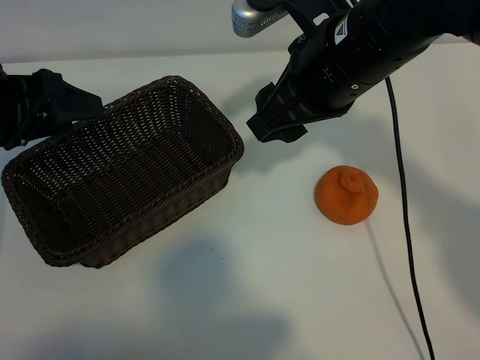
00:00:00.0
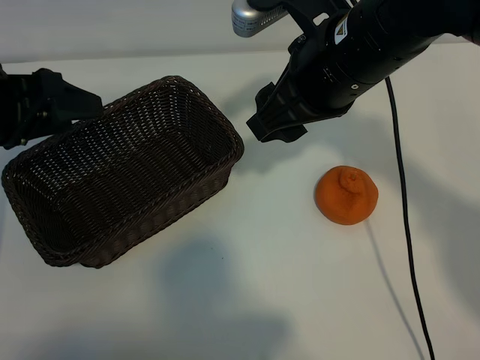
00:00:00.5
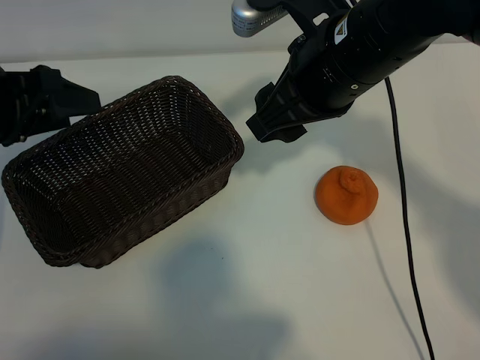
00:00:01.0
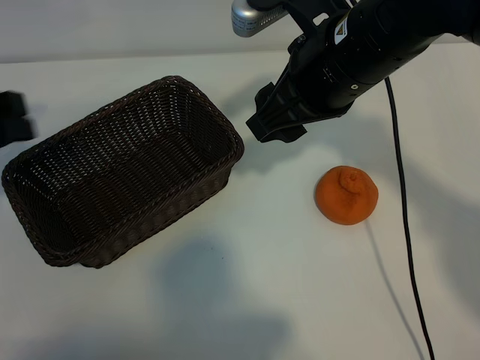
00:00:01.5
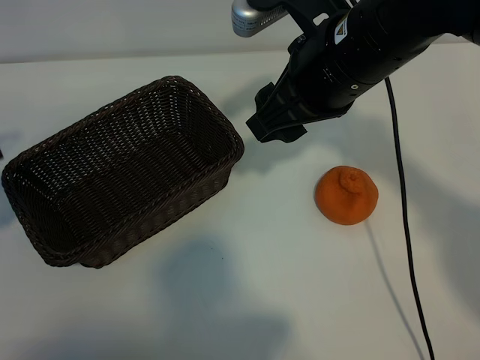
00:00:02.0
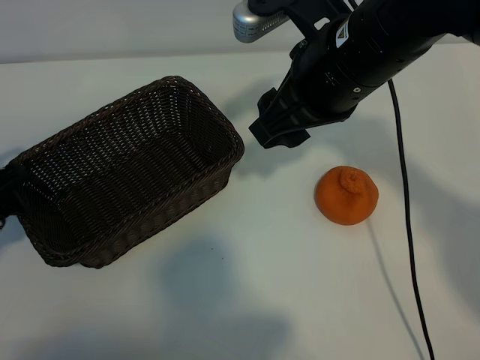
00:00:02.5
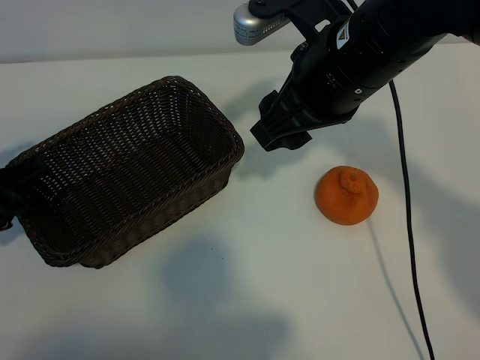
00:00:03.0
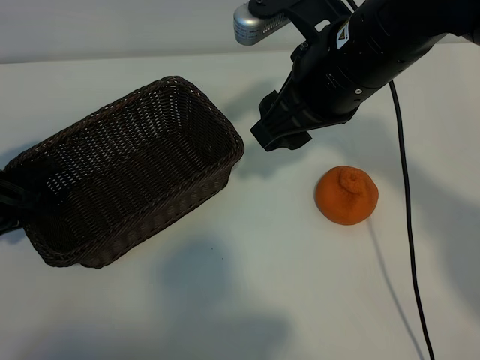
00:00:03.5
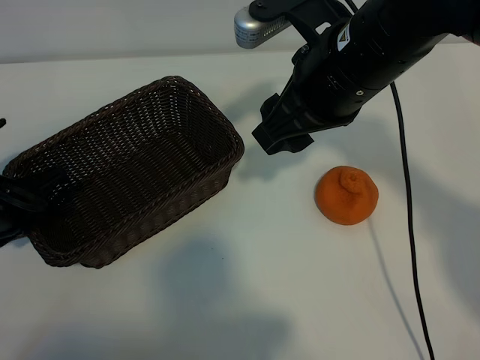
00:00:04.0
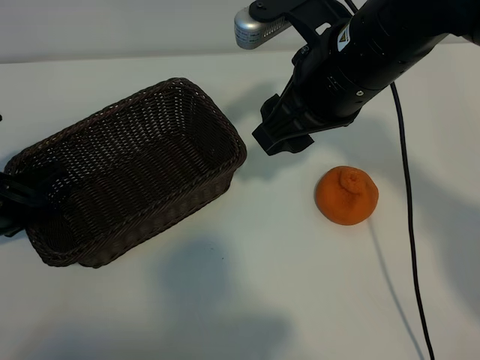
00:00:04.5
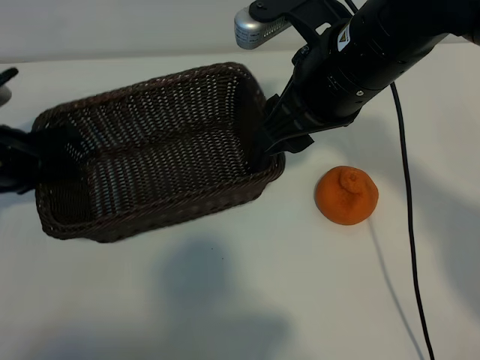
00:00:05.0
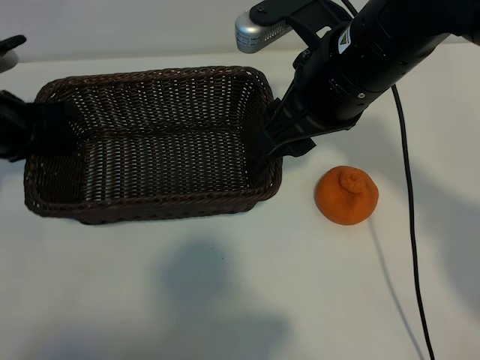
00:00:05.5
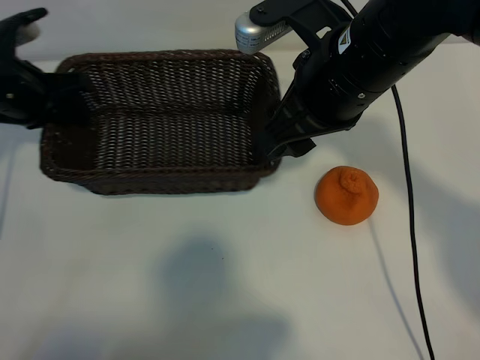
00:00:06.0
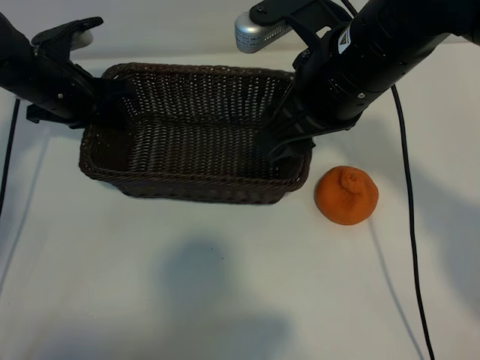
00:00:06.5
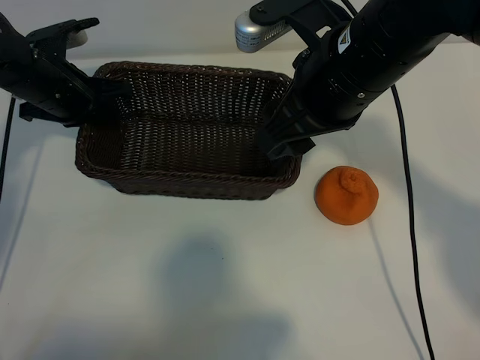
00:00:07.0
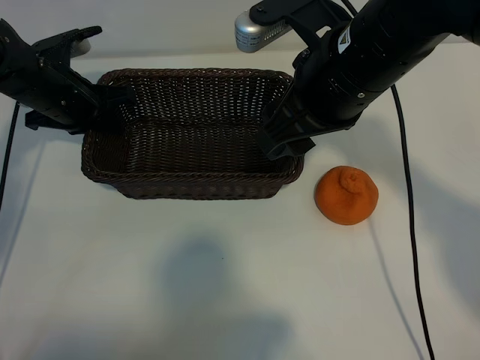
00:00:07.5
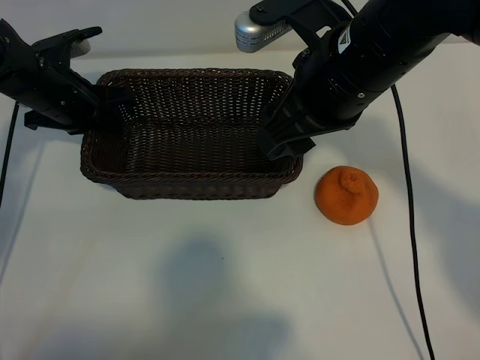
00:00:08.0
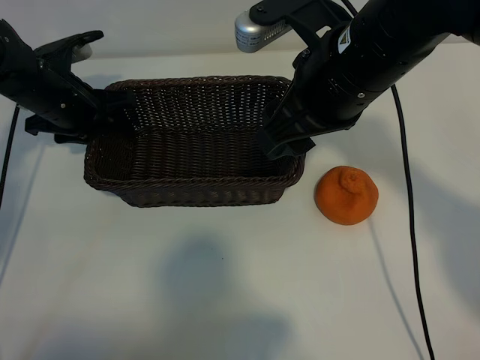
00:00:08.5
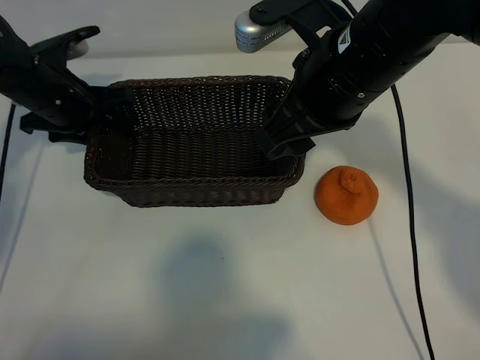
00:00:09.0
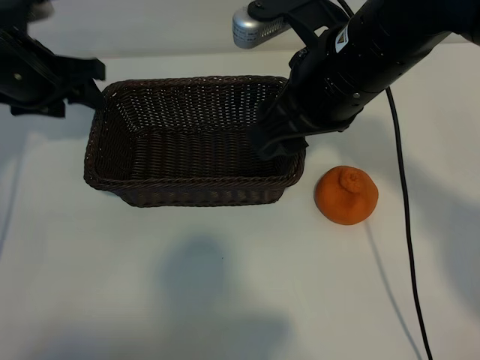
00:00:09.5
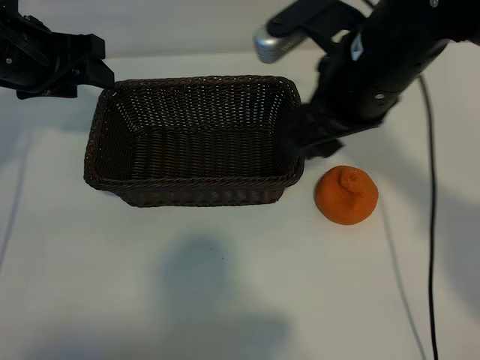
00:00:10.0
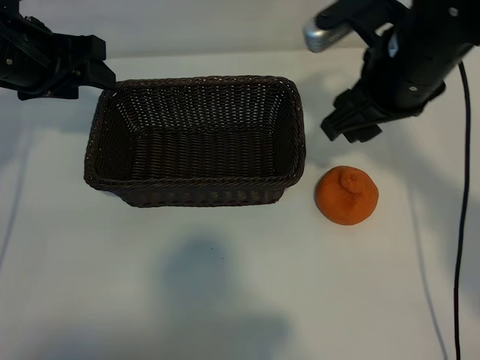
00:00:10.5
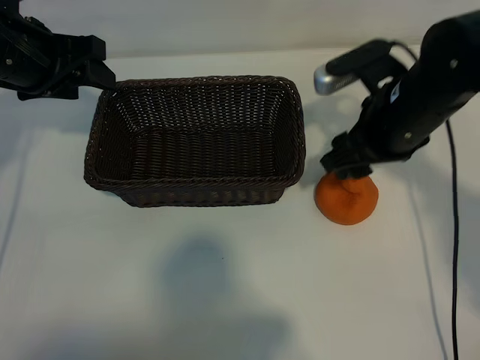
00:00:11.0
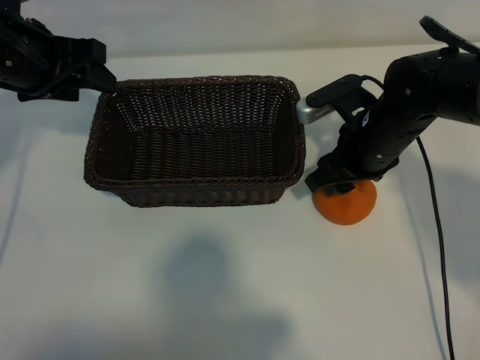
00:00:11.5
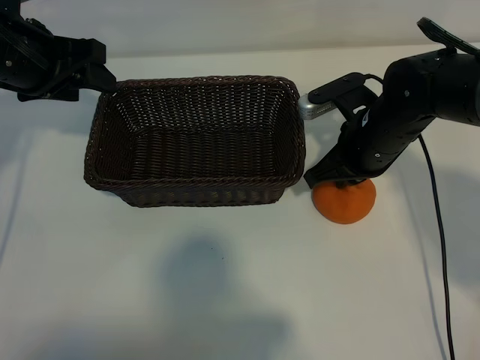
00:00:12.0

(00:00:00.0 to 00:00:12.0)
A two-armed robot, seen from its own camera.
Task of the whole recording: pick up the orange and put it into the basket.
Step, 00:00:01.0 - 00:00:04.0: Grasp the basket with left gripper.
Step, 00:00:04.5 - 00:00:08.5: Place the basket in the center of view with left gripper.
Step, 00:00:09.0 - 00:00:11.5: Grasp the orange with right gripper.

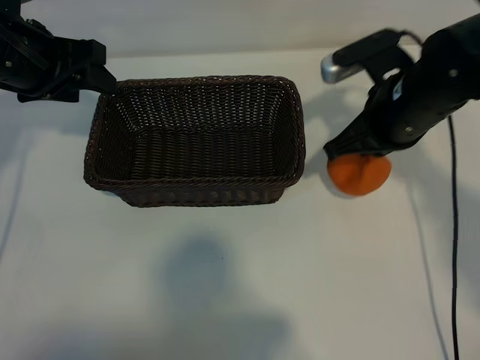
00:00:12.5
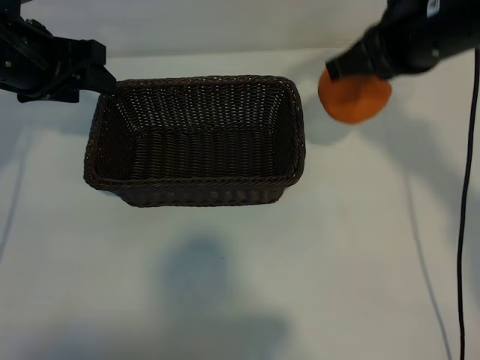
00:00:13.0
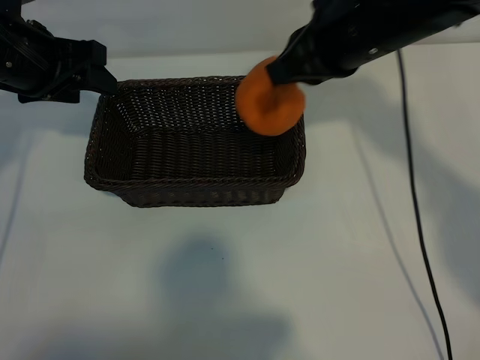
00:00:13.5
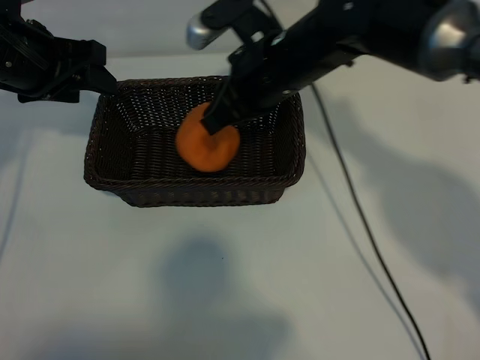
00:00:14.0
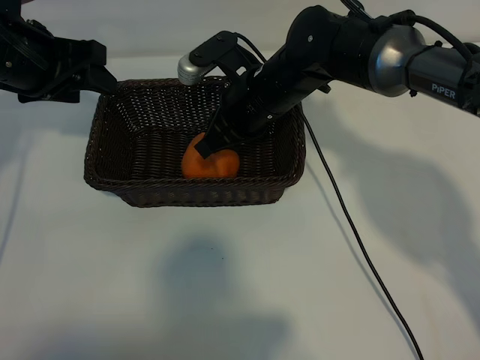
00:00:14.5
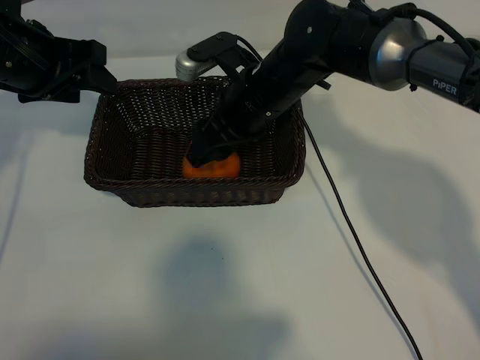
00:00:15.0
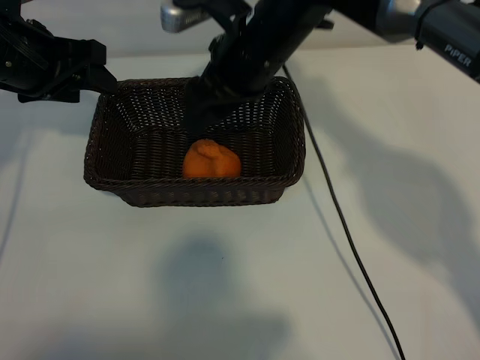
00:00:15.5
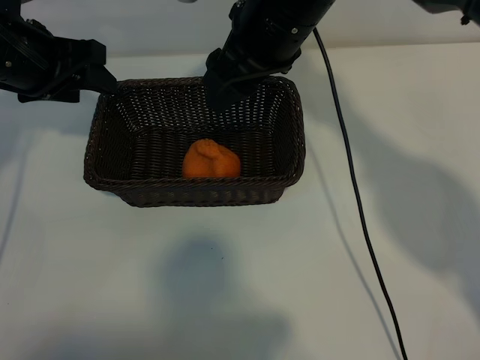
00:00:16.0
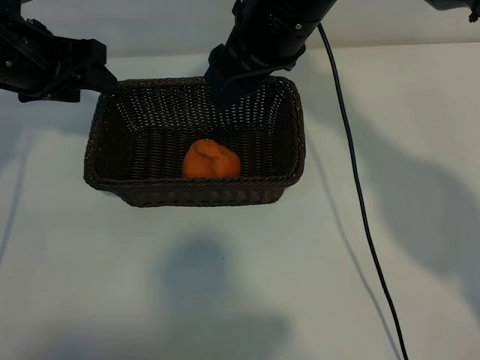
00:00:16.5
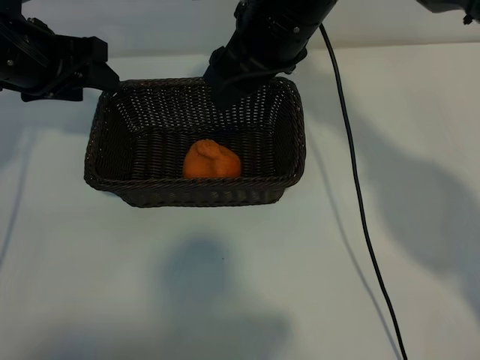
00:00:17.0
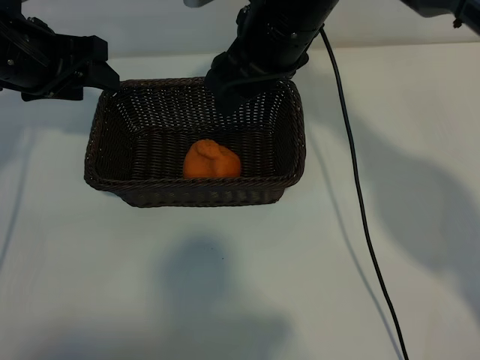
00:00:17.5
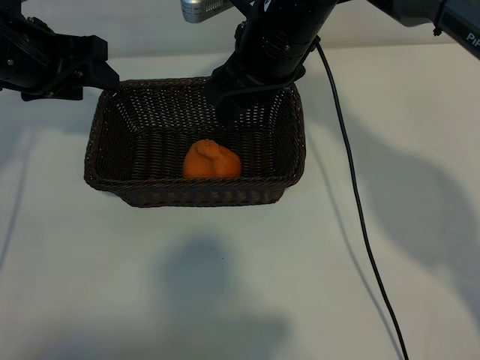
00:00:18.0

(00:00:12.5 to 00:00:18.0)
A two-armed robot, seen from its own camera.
Task of the whole recording: pick up the orange and put it into the basket.
Step, 00:00:12.5 - 00:00:15.0: Place the orange in the basket with right gripper.

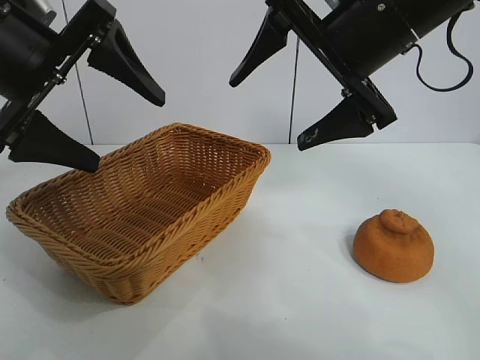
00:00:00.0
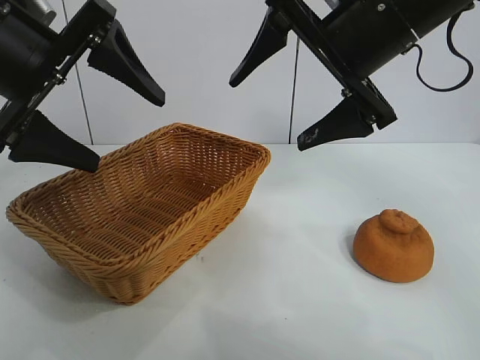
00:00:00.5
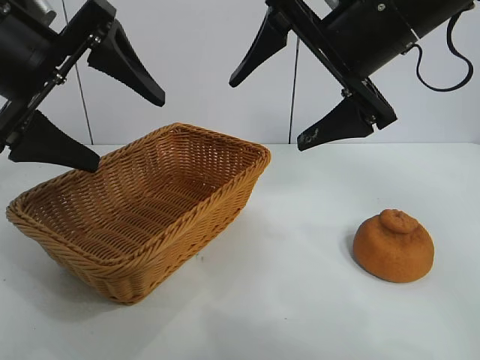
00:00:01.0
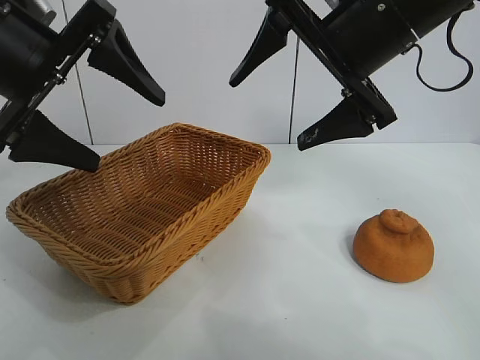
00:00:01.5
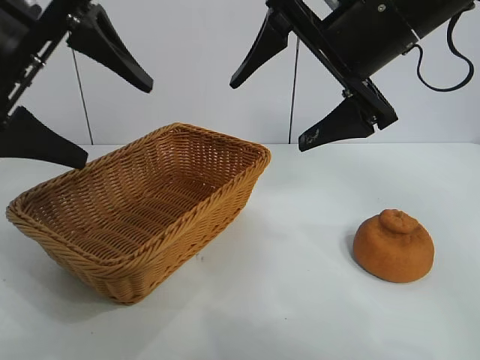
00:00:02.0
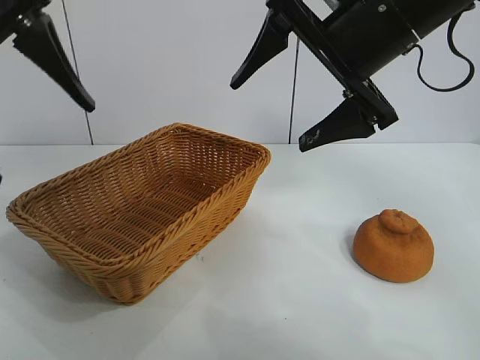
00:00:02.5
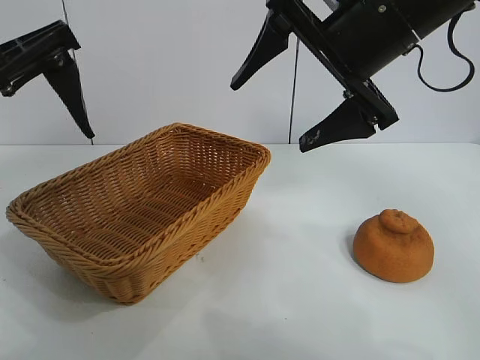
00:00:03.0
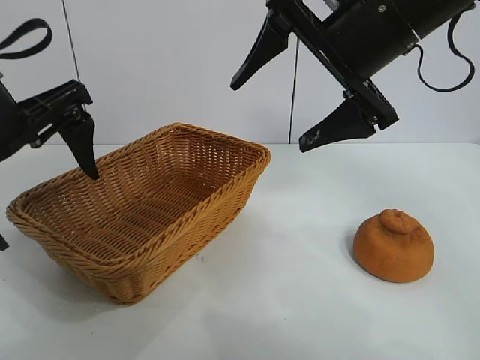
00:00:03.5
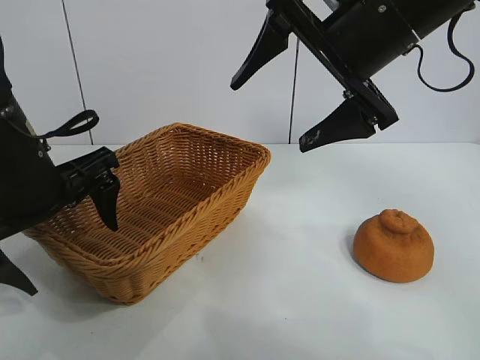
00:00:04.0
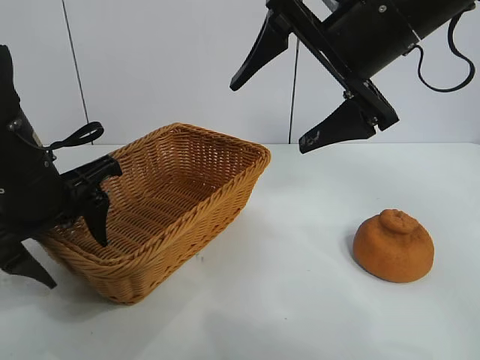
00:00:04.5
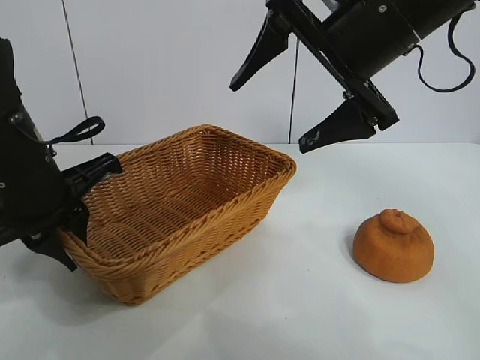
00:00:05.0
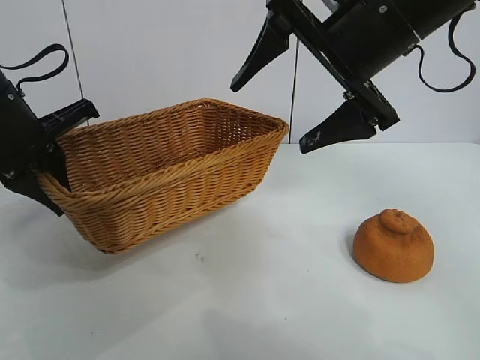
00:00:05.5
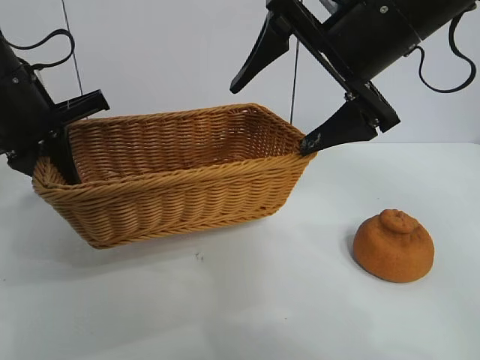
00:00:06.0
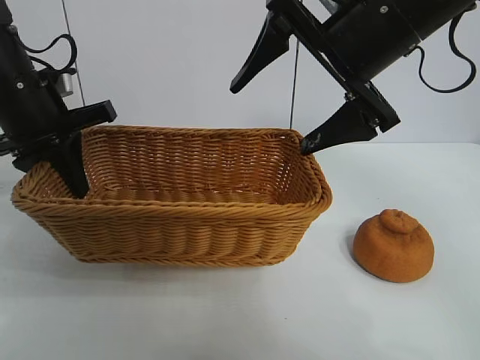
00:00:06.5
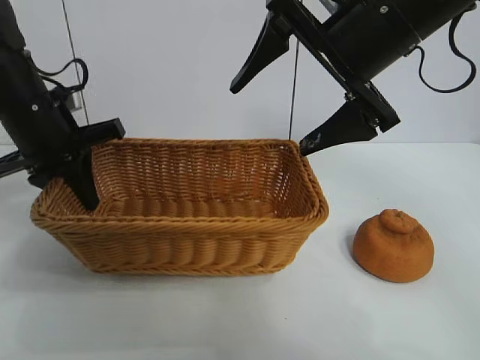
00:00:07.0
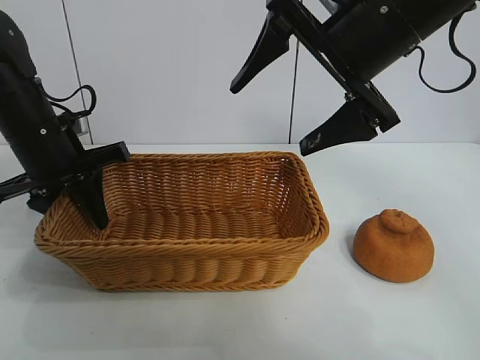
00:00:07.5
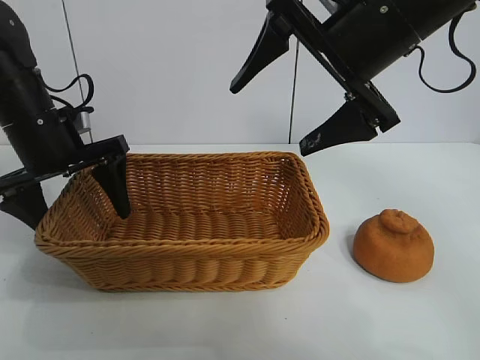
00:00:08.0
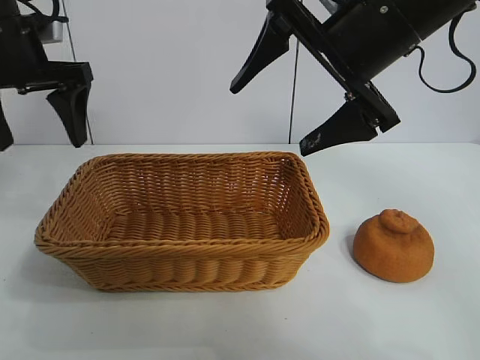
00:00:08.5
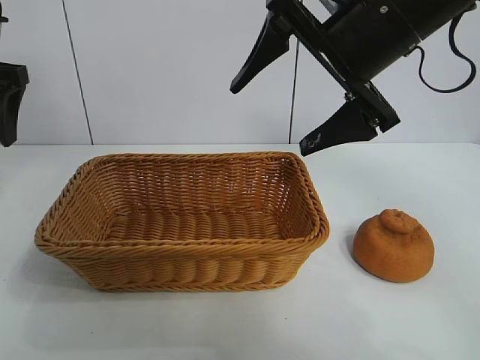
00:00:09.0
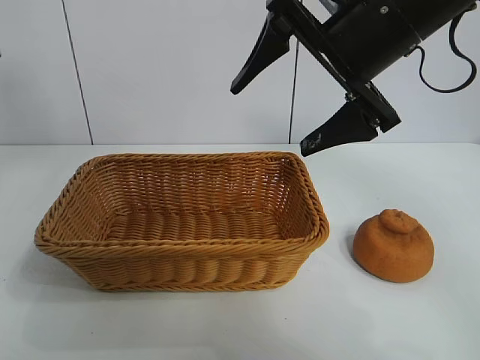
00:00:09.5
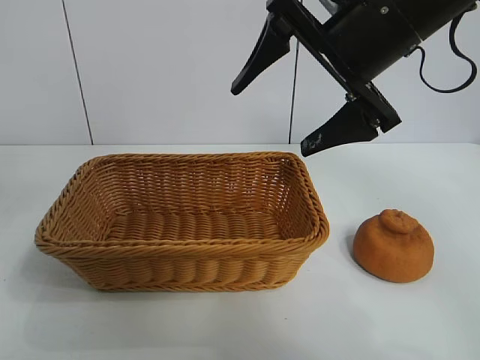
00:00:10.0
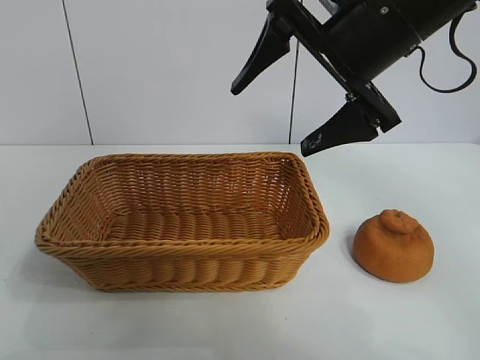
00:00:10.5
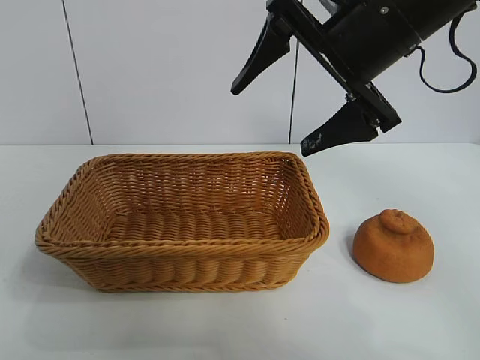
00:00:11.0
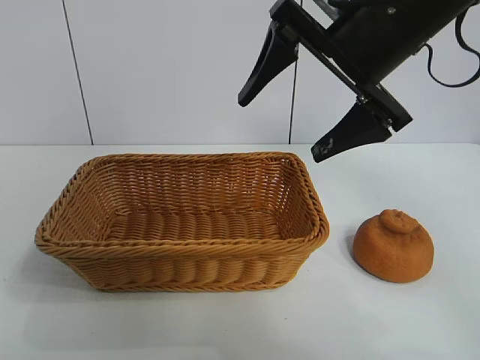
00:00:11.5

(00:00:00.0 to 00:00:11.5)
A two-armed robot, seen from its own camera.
Task of the whole recording: pick up the orange and put it into the basket.
Step, 00:00:02.0 - 00:00:04.5: Grasp the basket with left gripper.
Step, 00:00:05.0 - 00:00:07.5: Place the basket in the center of view with left gripper.
